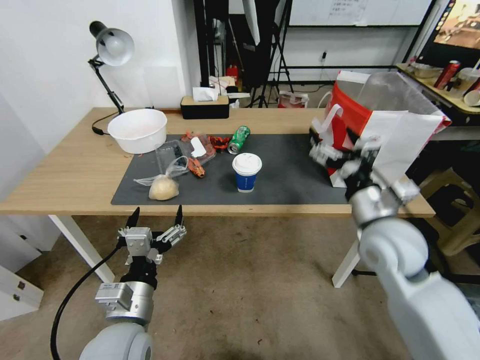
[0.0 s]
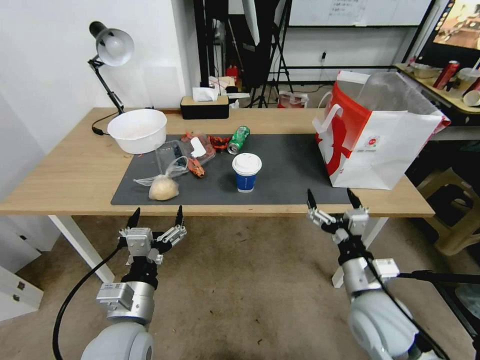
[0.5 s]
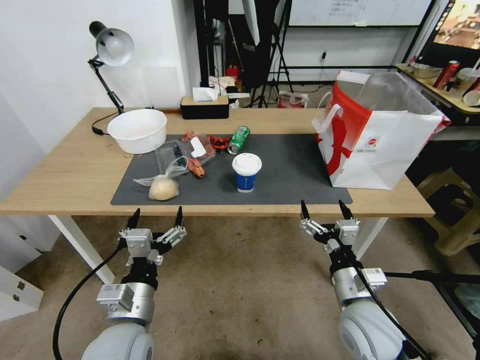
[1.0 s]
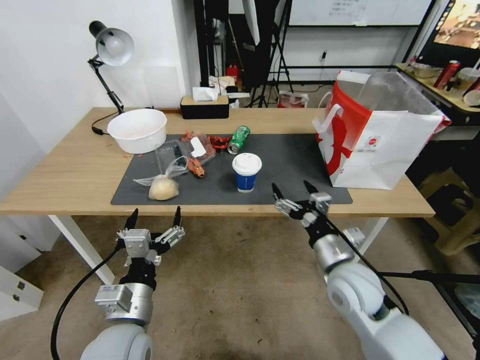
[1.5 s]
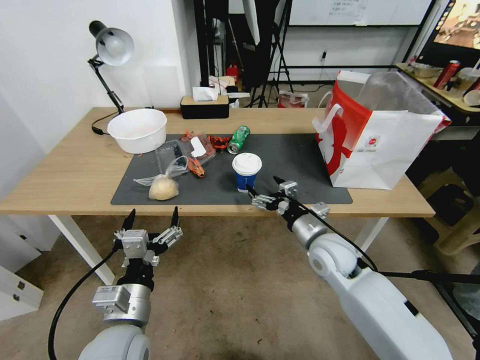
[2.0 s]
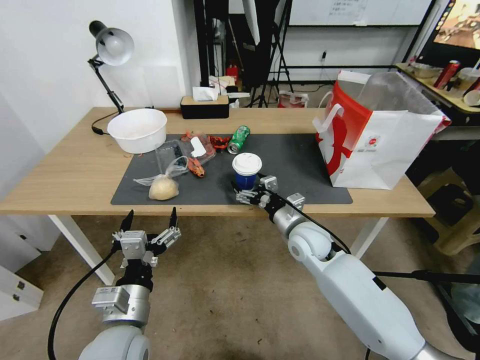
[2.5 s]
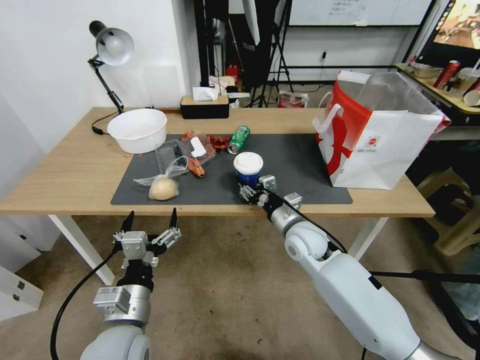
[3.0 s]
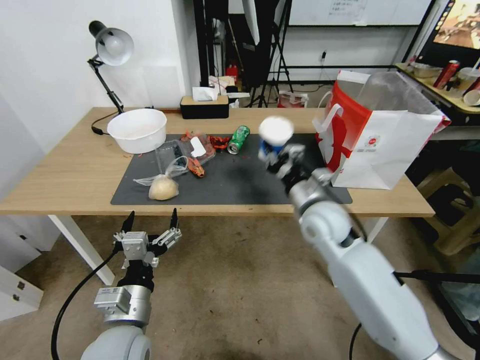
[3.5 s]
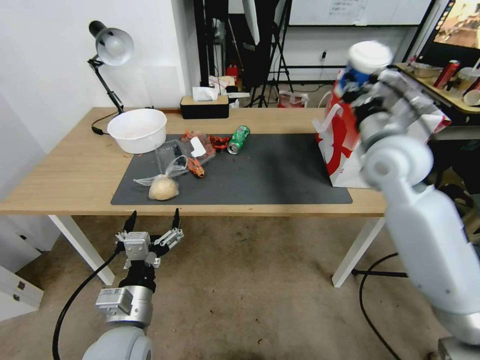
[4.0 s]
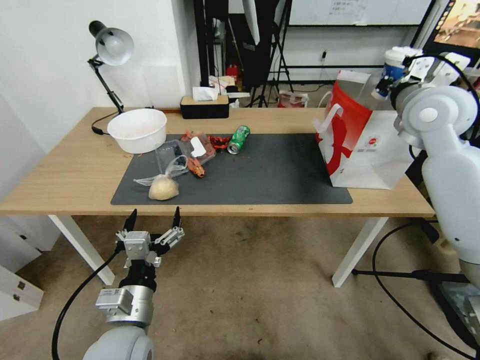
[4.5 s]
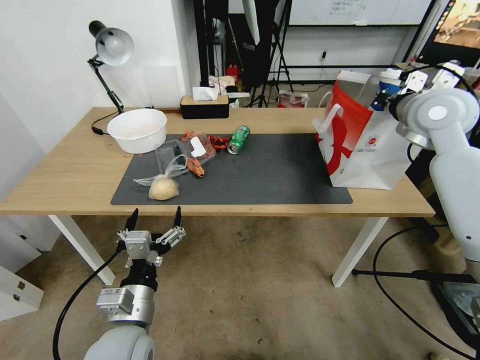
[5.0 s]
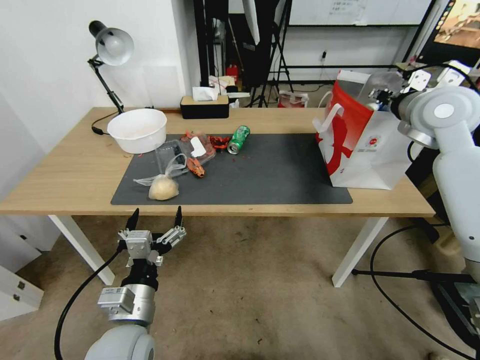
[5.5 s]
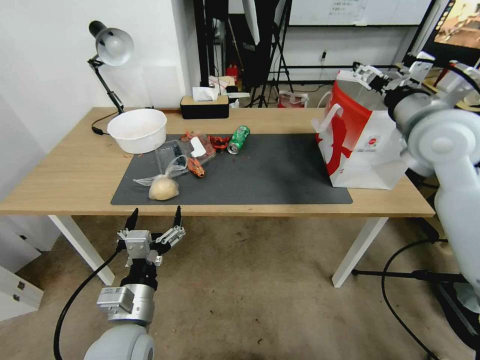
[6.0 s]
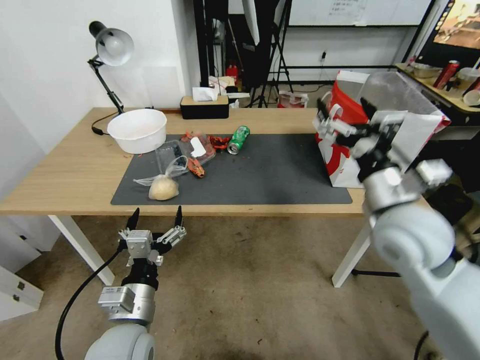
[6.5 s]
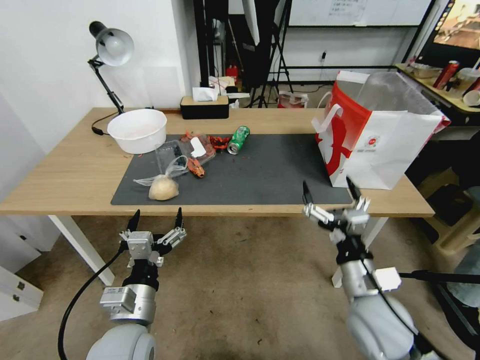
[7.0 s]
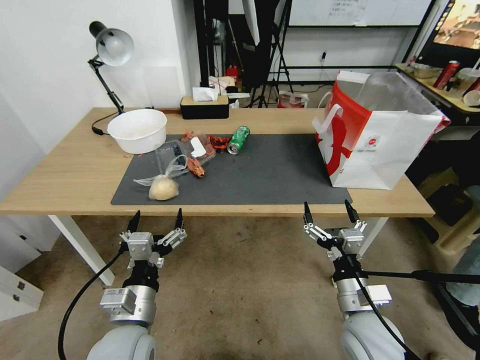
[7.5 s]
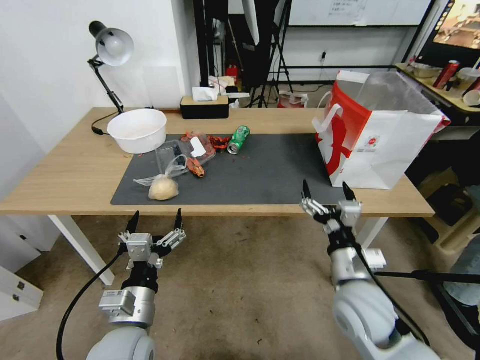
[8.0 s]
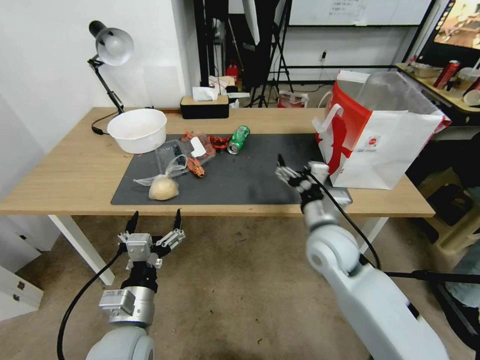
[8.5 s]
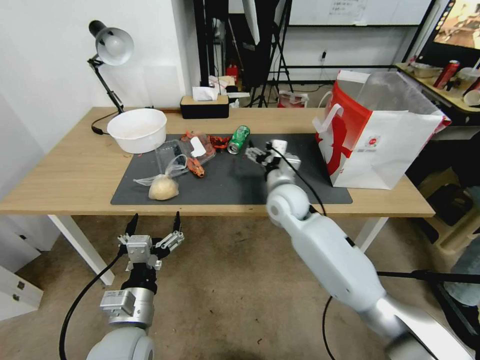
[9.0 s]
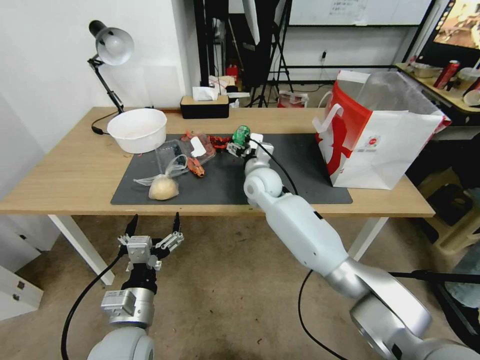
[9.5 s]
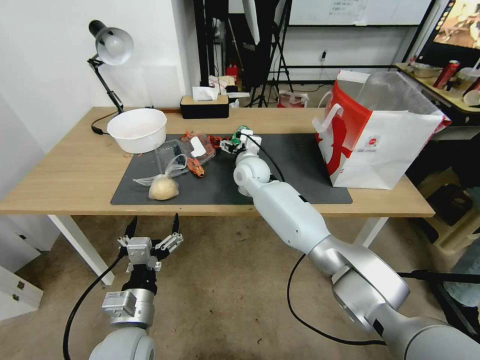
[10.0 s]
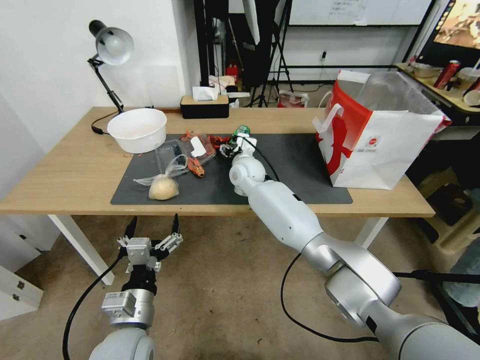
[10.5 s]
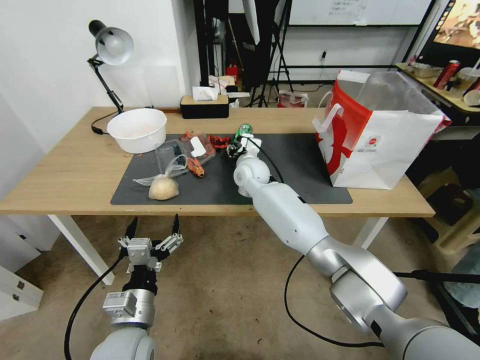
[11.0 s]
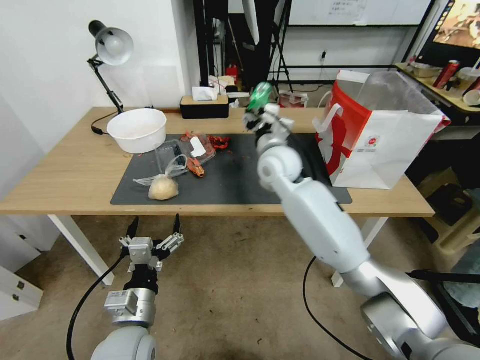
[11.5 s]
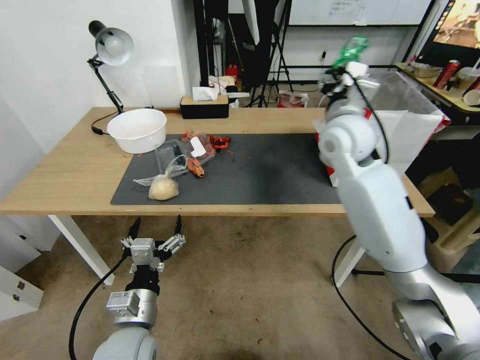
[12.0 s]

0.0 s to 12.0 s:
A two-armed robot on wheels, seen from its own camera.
0.0 to 2.0 s: The right gripper moves downward and to the left, approximately 10 cm, and reaches approximately 10 cm backward, then returns.
2.0 to 4.0 s: The right gripper goes approximately 25 cm upward, and closes.
4.0 to 6.0 s: The right gripper shifts roughly 5 cm upward, and opens up.
6.0 to 8.0 s: The right gripper travels downward and backward by roughly 30 cm.
8.0 to 10.0 s: The right gripper travels forward and to the left by approximately 40 cm.
10.0 to 12.0 s: The right gripper travels upward, to the right and backward by about 25 cm, and closes up.

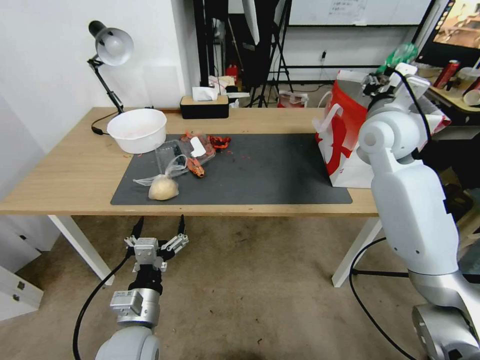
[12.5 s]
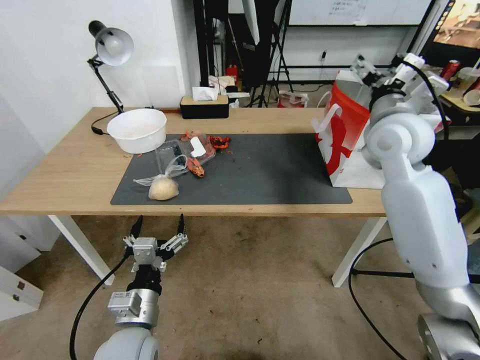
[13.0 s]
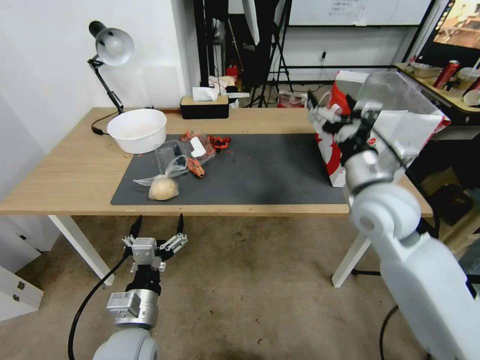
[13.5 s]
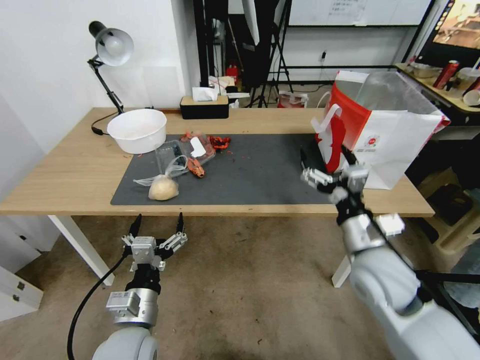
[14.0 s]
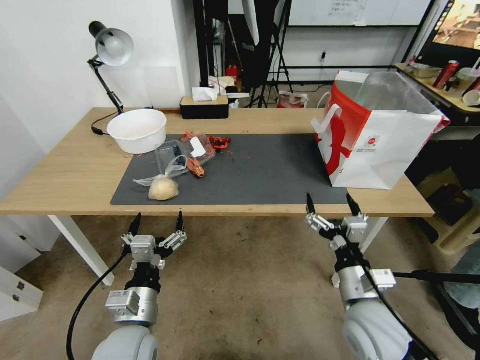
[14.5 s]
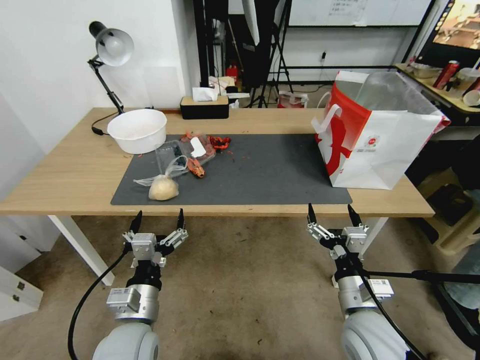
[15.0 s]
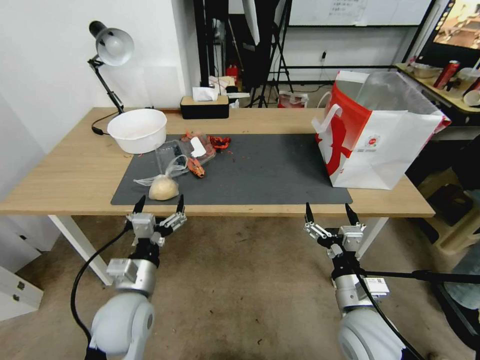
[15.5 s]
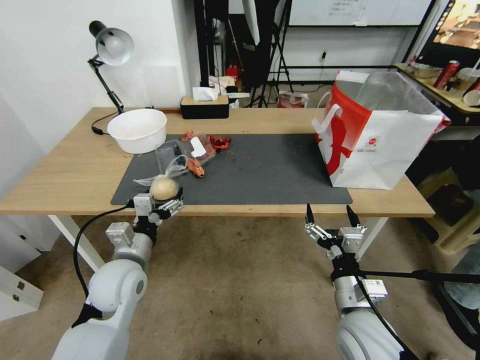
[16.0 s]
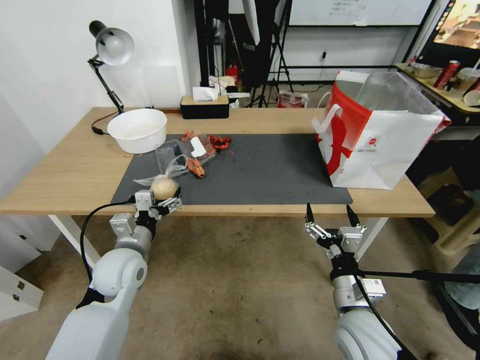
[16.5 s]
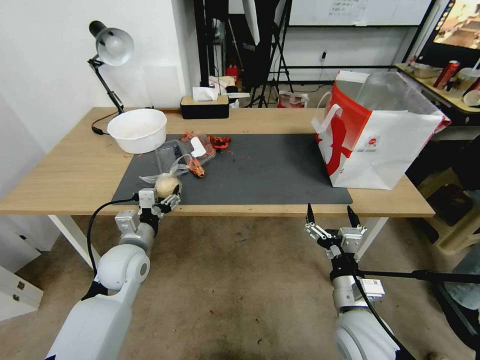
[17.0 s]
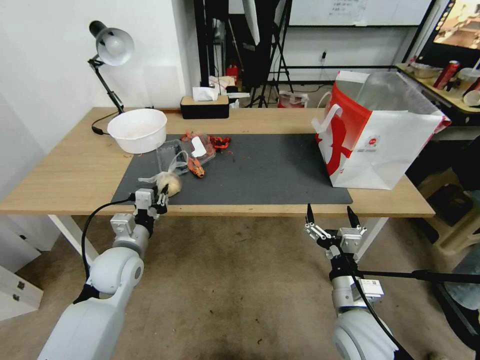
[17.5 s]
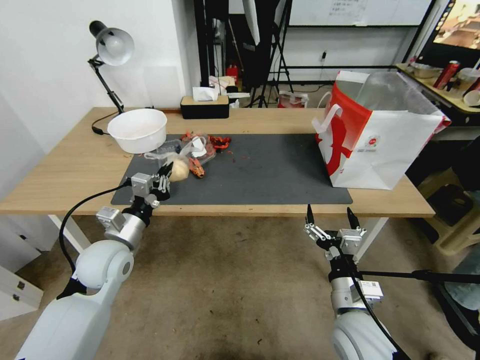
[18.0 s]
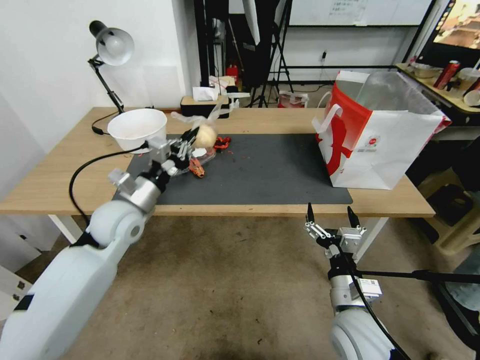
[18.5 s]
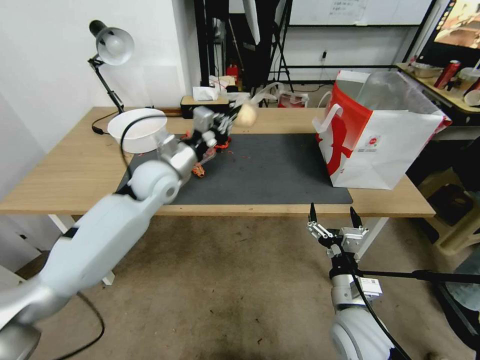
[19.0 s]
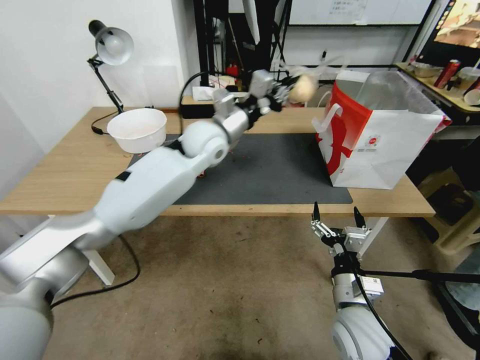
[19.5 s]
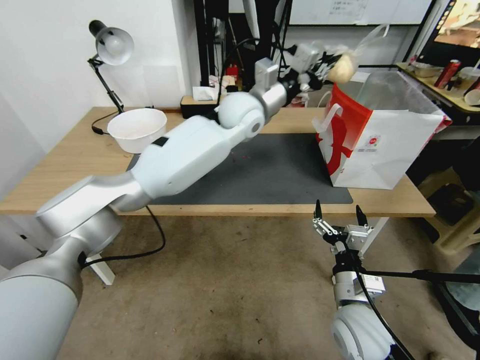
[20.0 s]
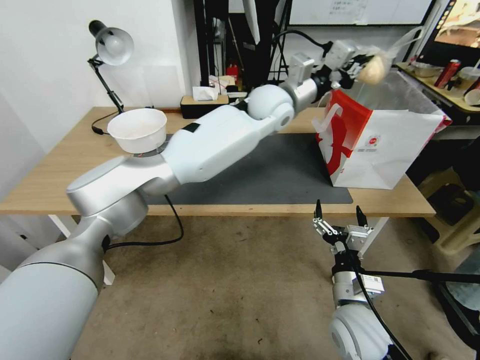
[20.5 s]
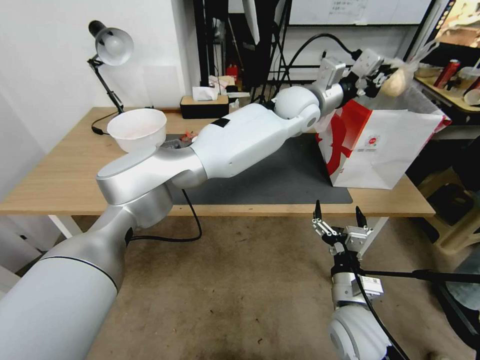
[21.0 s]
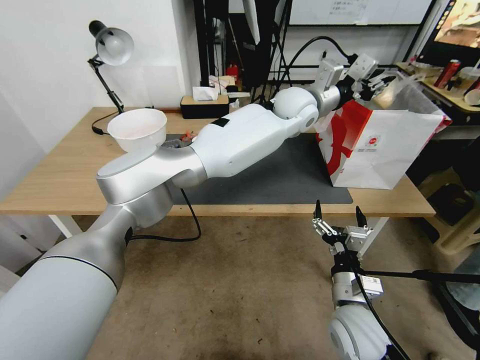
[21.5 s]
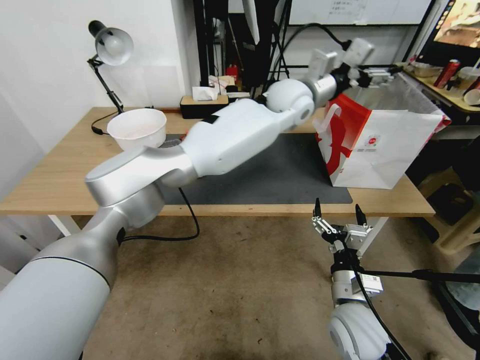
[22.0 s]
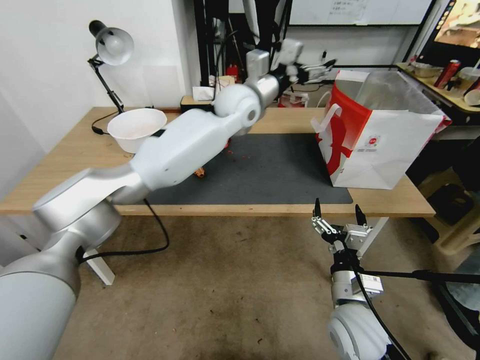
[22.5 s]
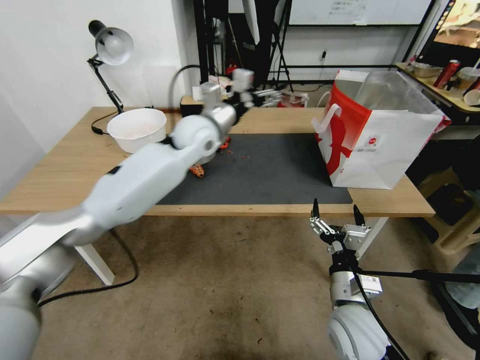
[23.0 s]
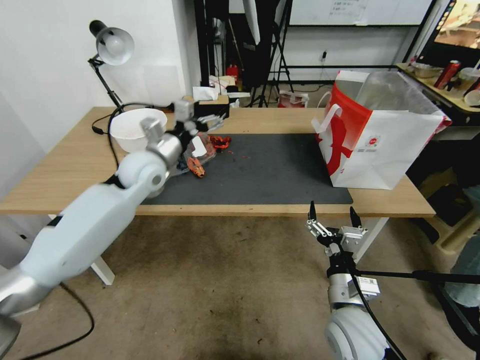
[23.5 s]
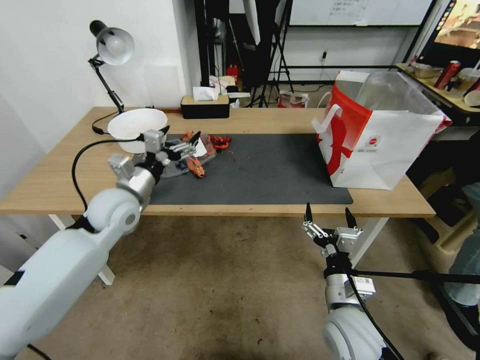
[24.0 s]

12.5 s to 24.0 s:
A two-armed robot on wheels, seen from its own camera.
12.5 to 14.5 s: The right gripper travels backward and downward by some 35 cm, and opens its fingers.
14.5 to 16.5 s: The left gripper travels forward and to the left by roughly 15 cm.
16.5 to 18.5 s: The left gripper heads upward and forward, covering about 10 cm, and closes its fingers.
18.5 to 20.0 s: The left gripper travels to the right, forward and upward by approximately 35 cm.
20.0 to 22.0 s: The left gripper shifts roughly 10 cm to the right, and opens up.
22.0 to 24.0 s: The left gripper moves to the left, downward and backward, some 40 cm.

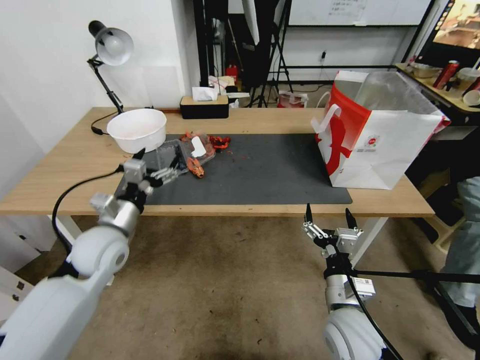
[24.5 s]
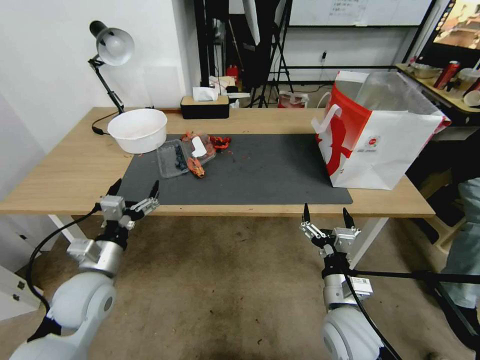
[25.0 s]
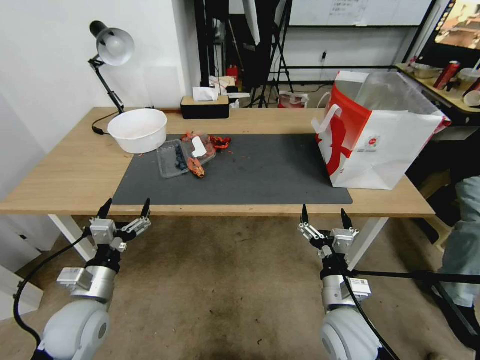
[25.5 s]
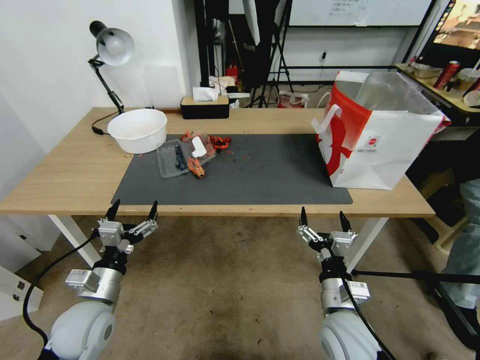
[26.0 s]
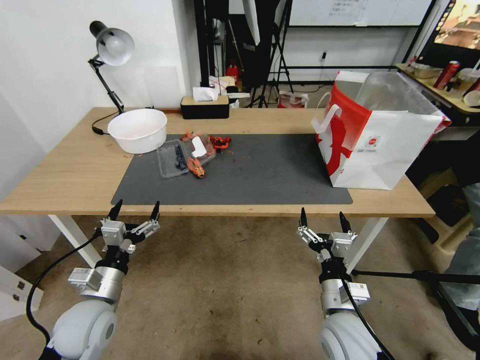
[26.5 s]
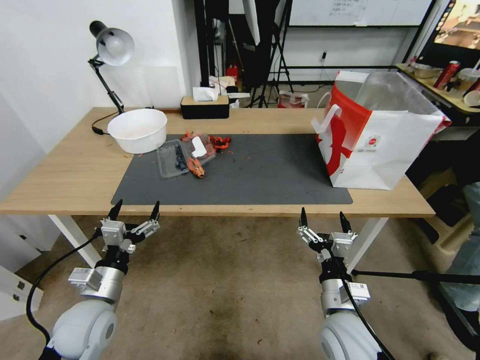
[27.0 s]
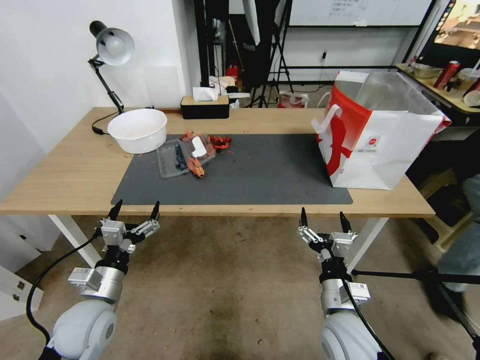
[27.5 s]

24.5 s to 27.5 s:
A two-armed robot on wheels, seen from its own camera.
24.5 to 26.0 s: The left gripper is displaced backward and downward by some 15 cm.
26.0 to 27.5 s: Both grippers stay about where they are.
